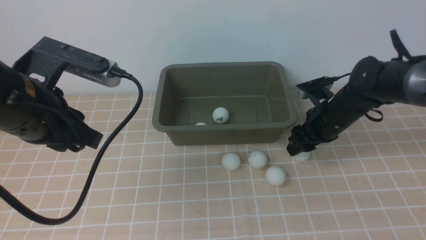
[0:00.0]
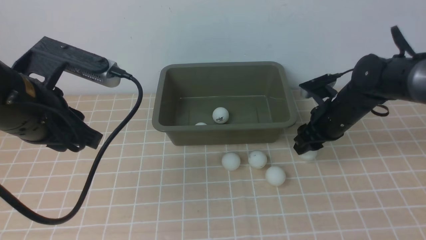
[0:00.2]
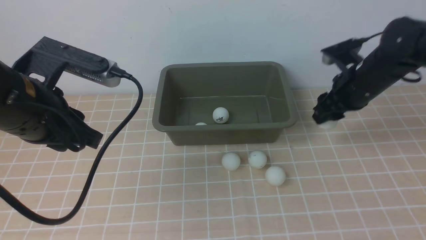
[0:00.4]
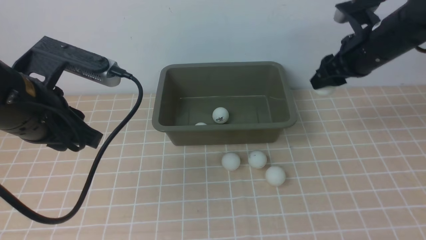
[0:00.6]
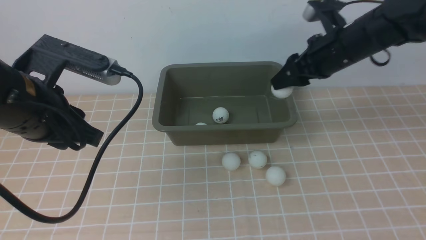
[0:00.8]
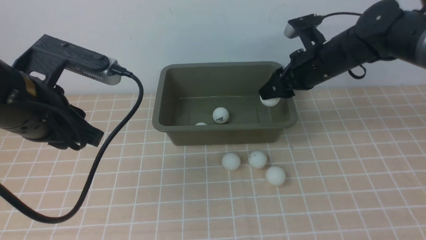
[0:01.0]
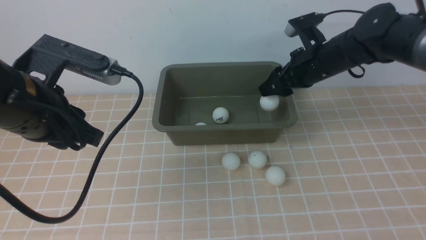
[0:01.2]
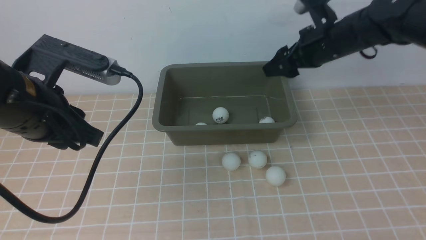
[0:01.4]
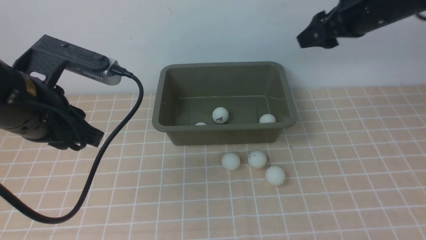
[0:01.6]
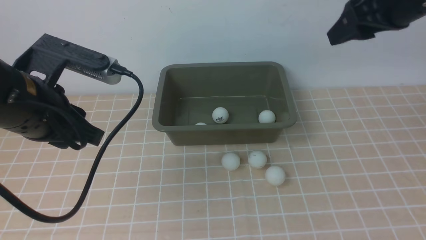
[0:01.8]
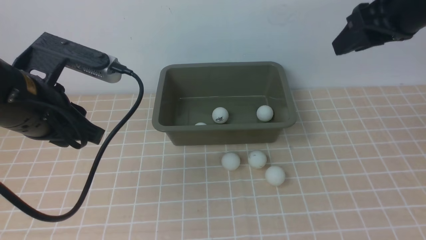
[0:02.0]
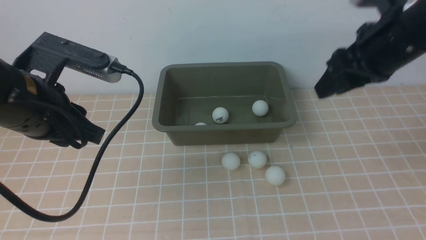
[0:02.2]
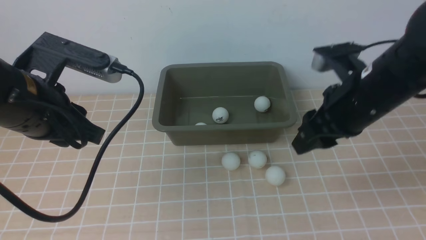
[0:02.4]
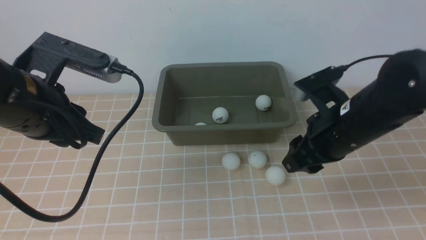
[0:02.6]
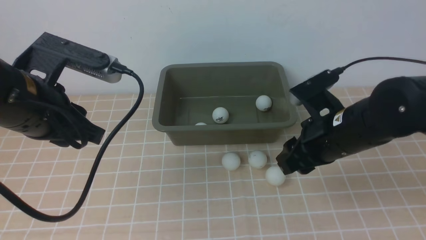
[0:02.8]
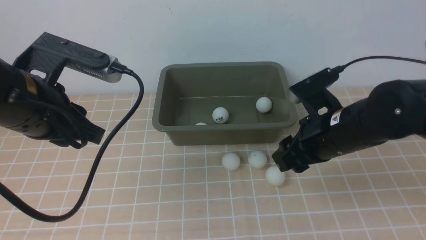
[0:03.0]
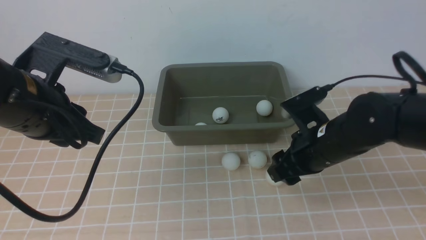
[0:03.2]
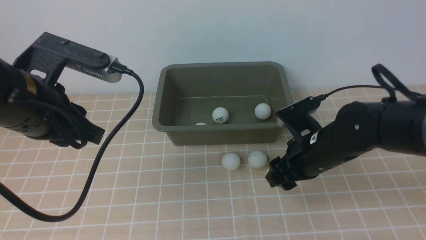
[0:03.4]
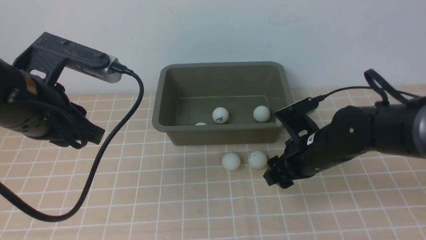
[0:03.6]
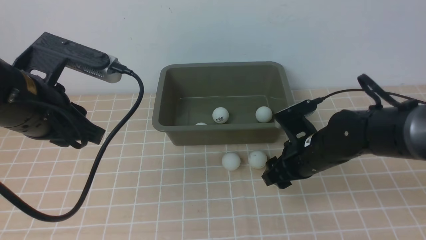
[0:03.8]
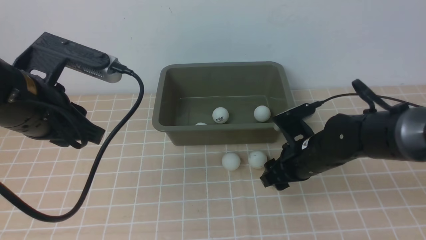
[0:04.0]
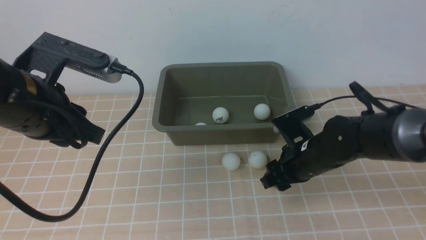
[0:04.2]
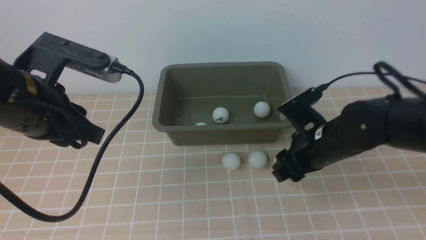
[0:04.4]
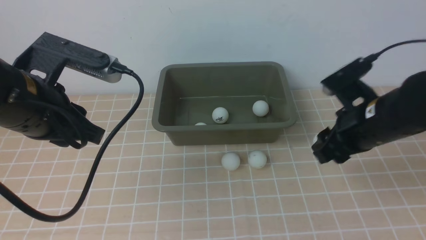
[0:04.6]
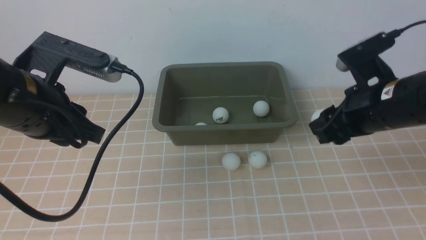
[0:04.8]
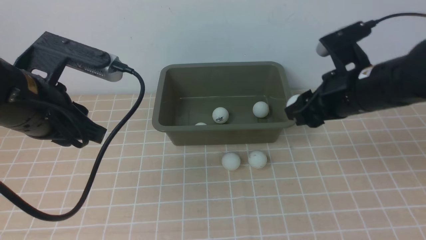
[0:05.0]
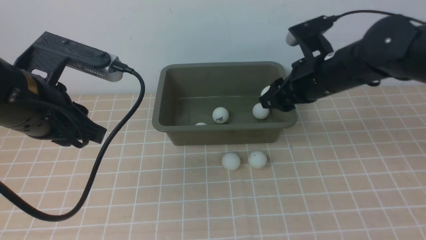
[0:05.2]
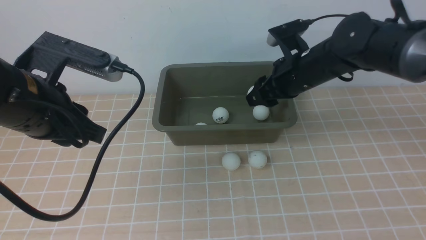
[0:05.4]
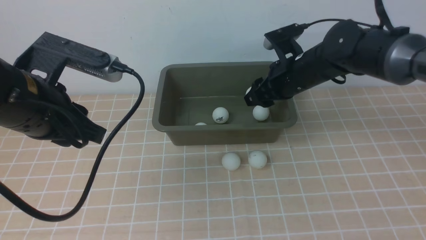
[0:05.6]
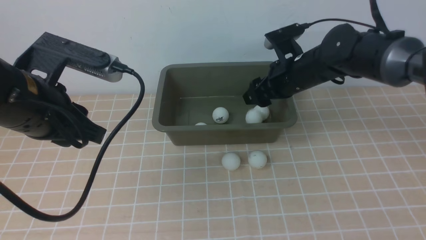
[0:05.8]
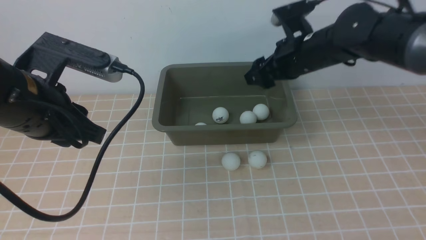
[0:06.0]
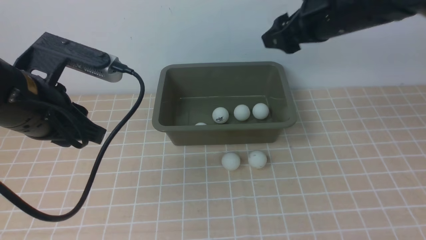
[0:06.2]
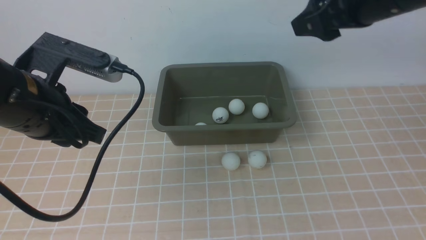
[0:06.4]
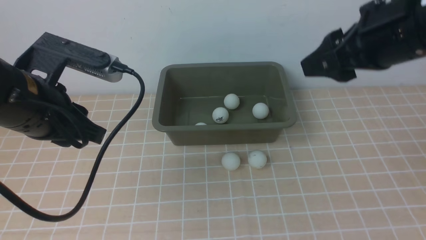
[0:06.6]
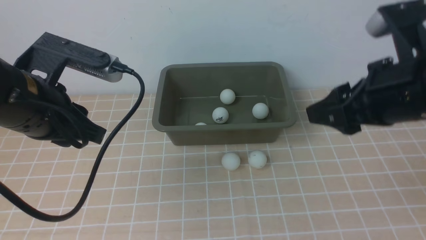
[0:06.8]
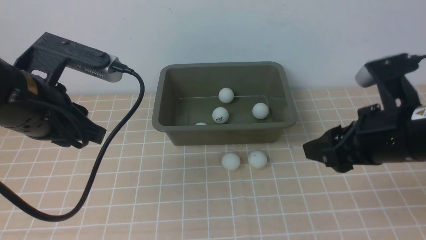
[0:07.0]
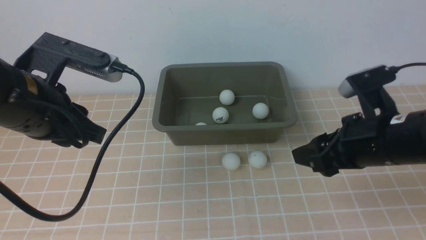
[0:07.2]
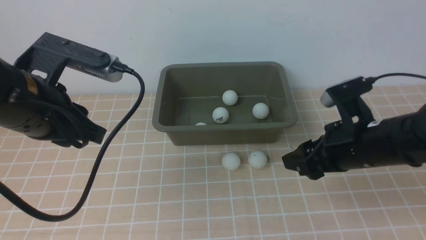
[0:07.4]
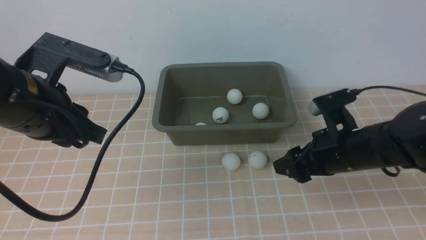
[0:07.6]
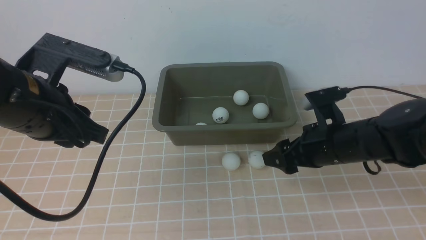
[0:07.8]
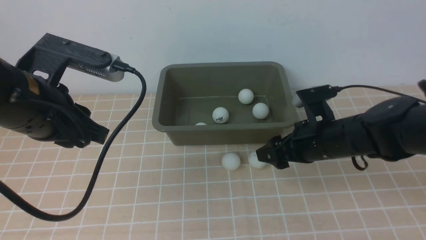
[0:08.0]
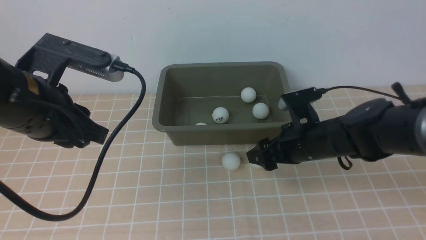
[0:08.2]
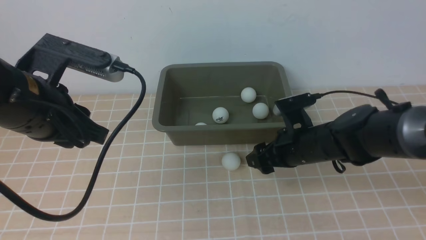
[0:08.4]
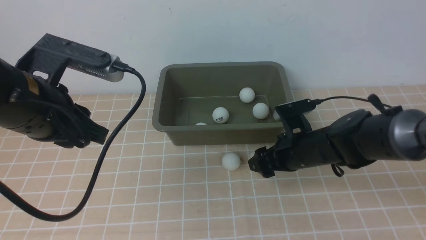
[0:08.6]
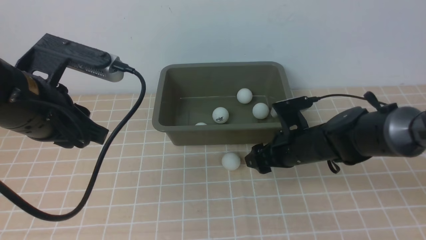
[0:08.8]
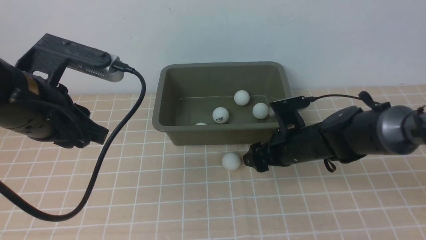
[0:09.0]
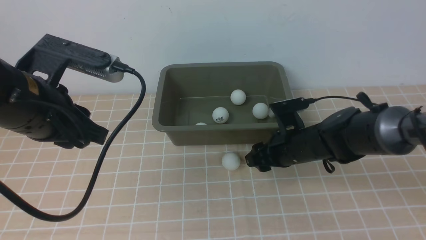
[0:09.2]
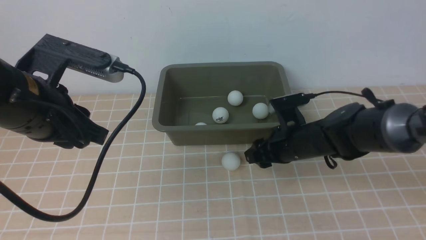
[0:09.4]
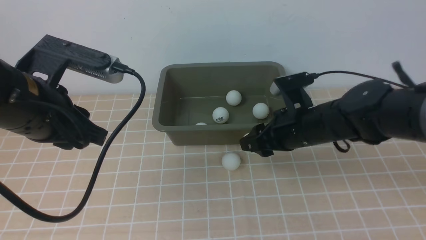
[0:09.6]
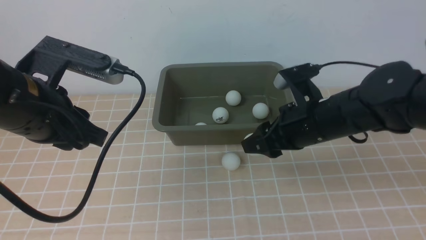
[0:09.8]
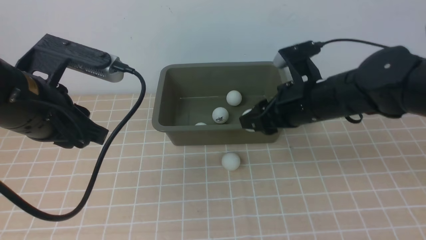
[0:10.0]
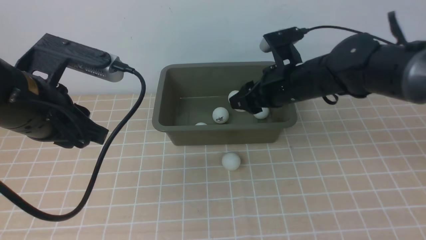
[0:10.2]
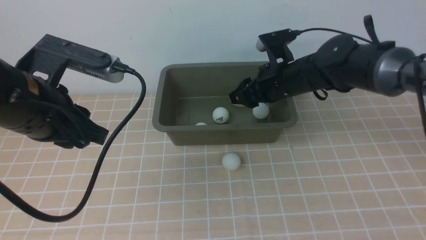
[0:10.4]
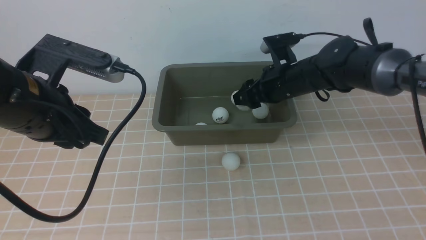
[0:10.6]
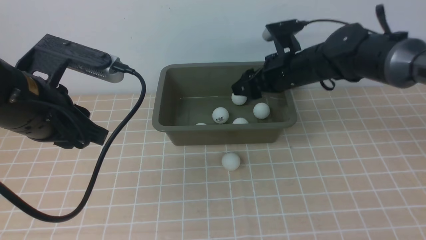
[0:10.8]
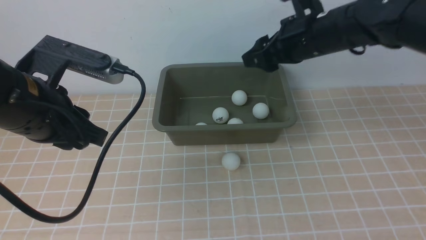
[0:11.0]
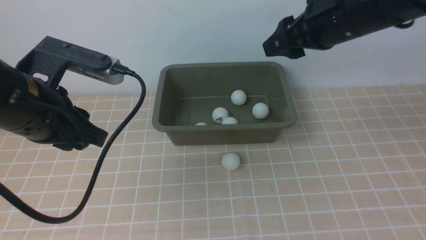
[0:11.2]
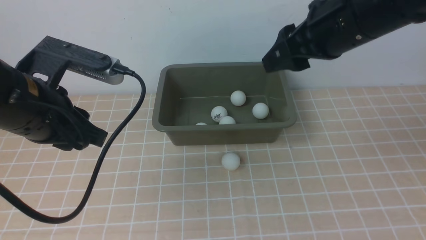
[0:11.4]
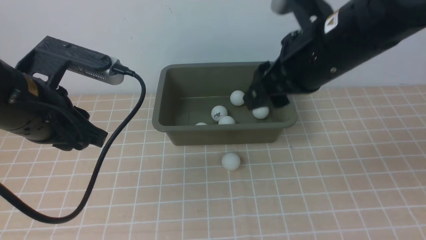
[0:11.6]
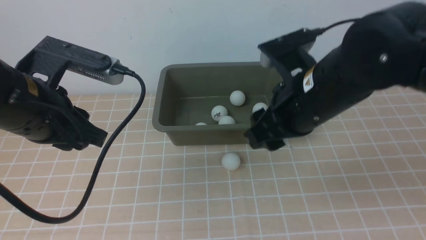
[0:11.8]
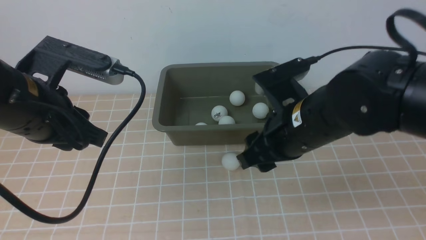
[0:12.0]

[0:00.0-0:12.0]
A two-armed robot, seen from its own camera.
0:00.0 to 0:01.6: The right gripper shifts some 20 cm upward.
0:01.6 to 0:03.0: The right gripper moves downward, backward and to the left, some 20 cm.
0:03.0 to 0:04.4: The right gripper moves roughly 10 cm downward and comes back.
0:04.4 to 0:06.0: The right gripper shifts approximately 15 cm forward and upward, and opens its fingers.
0:06.0 to 0:07.6: The right gripper heads backward and downward, covering some 15 cm.
0:07.6 to 0:09.0: The right gripper goes some 10 cm downward and forward.
0:09.0 to 0:10.4: The right gripper travels upward and forward by about 10 cm.
0:10.4 to 0:12.0: The right gripper travels backward by about 15 cm.

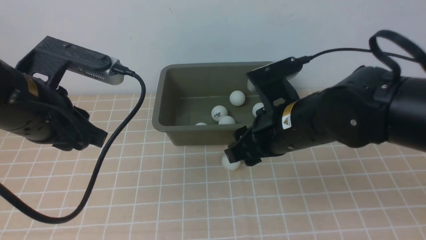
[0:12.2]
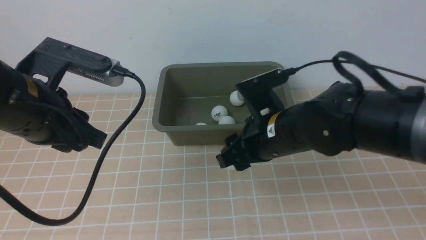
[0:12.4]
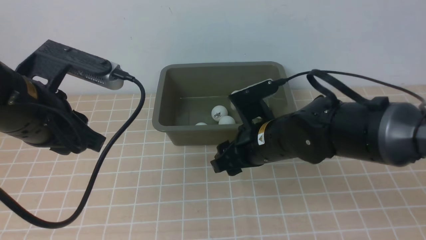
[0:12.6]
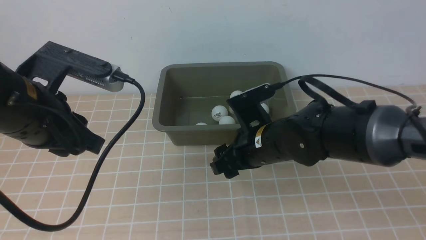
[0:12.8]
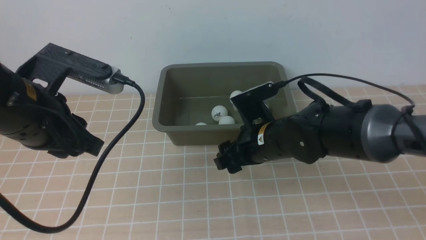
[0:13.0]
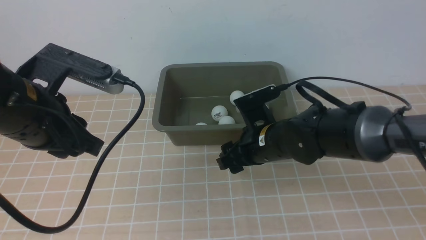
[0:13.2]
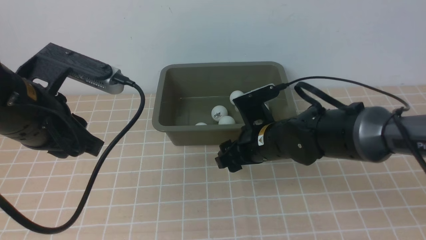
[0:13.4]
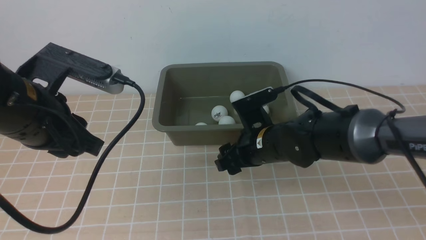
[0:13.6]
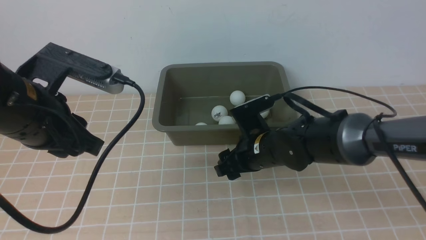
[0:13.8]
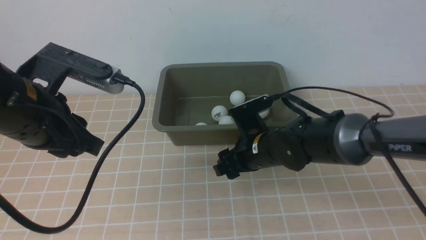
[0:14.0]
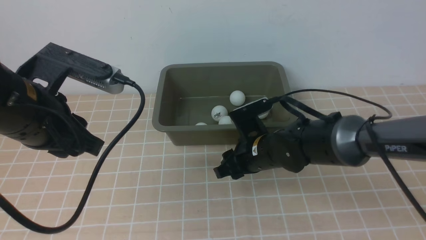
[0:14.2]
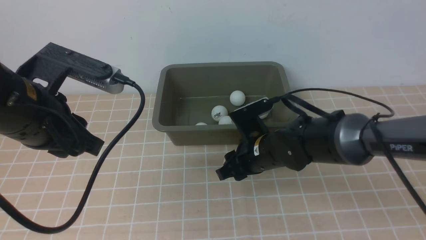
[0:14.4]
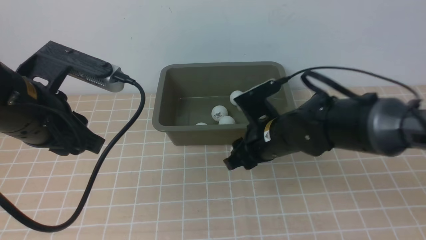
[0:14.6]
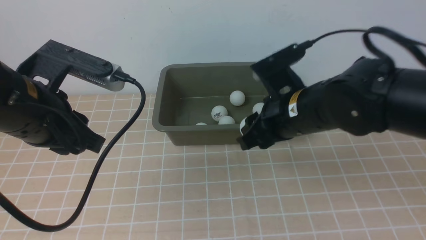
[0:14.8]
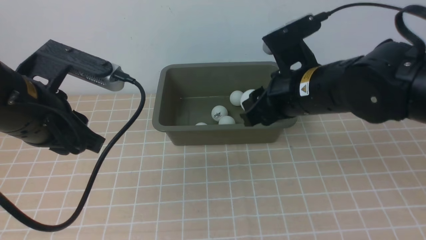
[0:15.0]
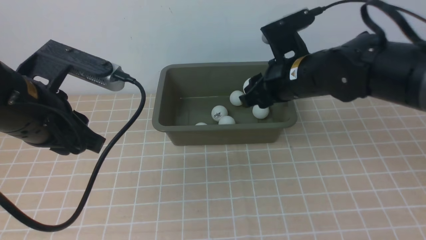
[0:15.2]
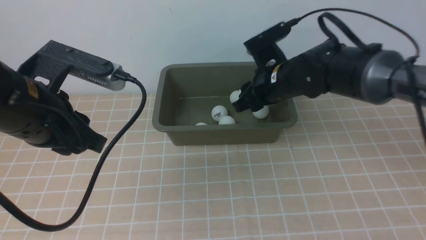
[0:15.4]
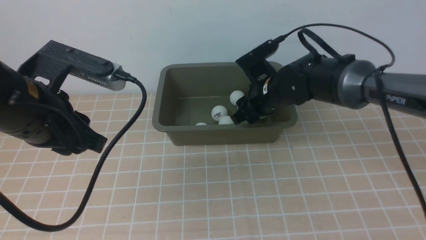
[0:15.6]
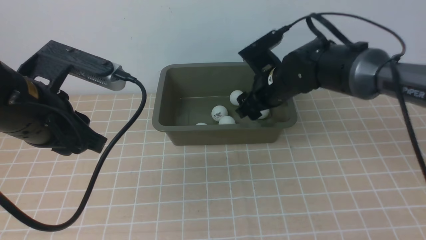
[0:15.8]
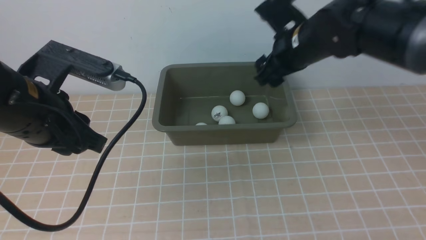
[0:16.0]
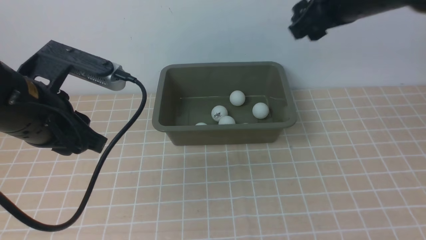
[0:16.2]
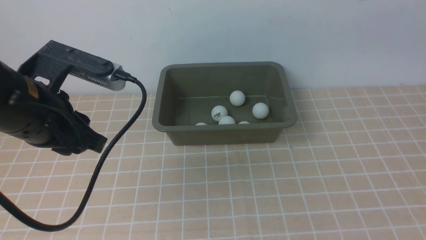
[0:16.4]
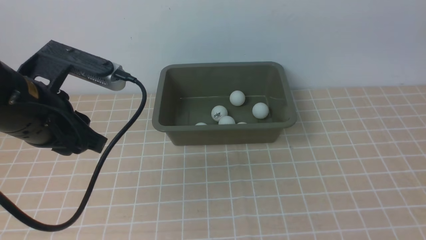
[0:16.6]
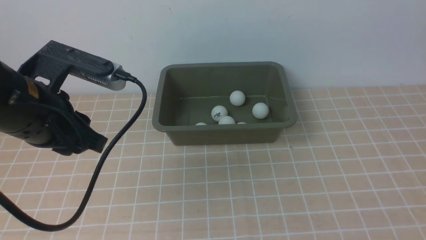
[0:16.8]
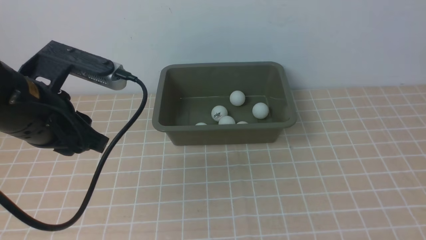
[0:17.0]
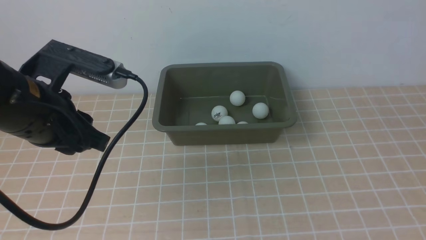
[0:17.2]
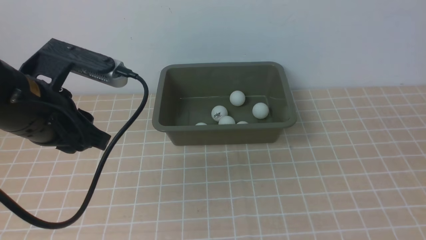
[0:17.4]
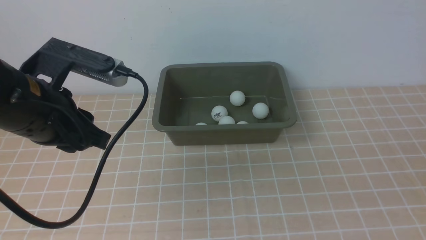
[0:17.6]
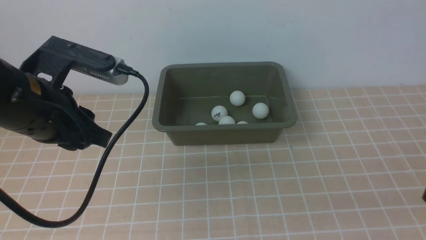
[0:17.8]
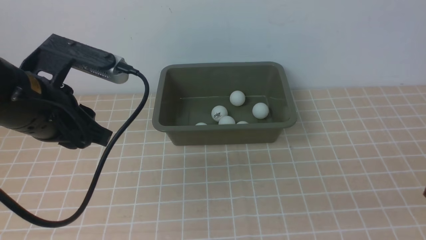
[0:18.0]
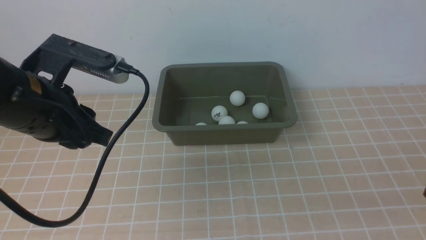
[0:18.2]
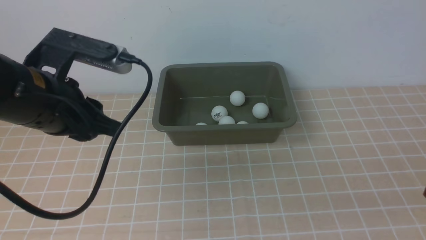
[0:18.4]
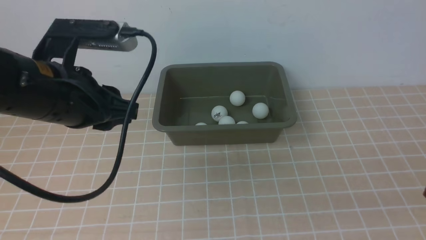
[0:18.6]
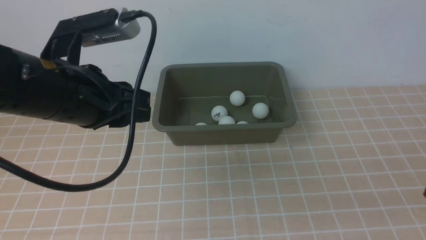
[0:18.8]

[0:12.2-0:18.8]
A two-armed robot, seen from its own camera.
0:12.2 to 0:13.8: The right gripper goes some 10 cm downward and forward.
0:13.8 to 0:15.4: The right gripper shifts approximately 10 cm upward and forward, and closes.
0:15.4 to 0:17.2: The right gripper is displaced backward, upward and to the right by some 40 cm, and closes up.
0:17.2 to 0:18.8: The right gripper travels downward by some 15 cm.
